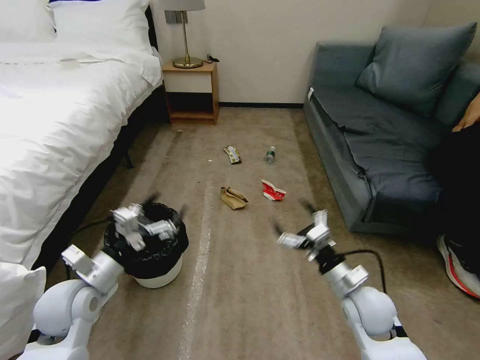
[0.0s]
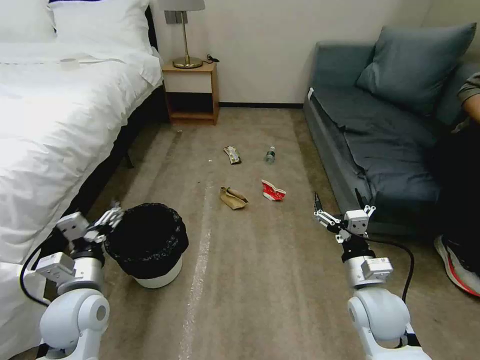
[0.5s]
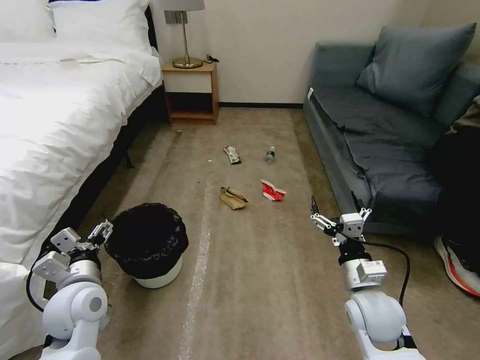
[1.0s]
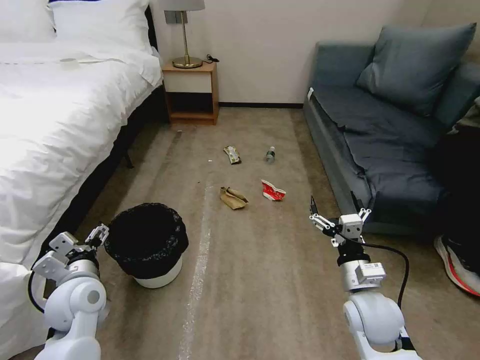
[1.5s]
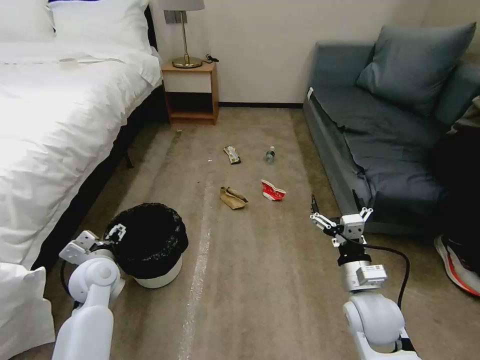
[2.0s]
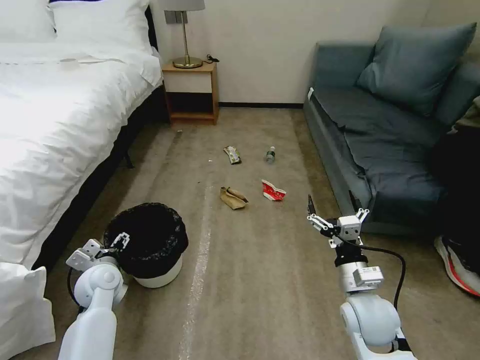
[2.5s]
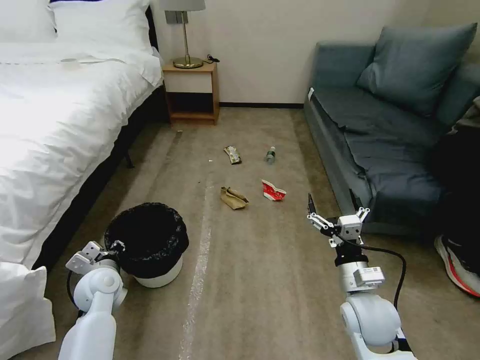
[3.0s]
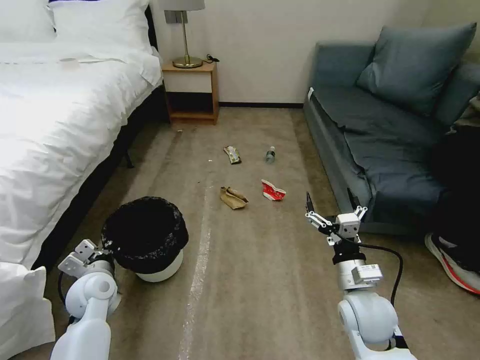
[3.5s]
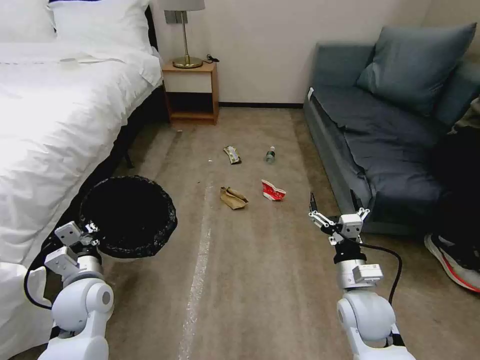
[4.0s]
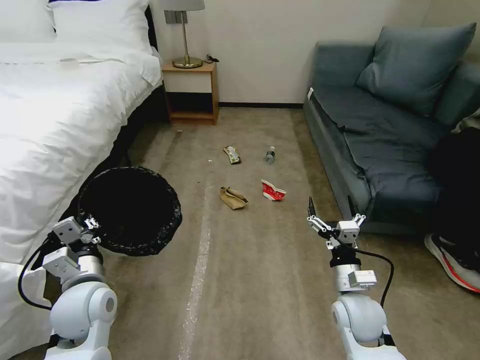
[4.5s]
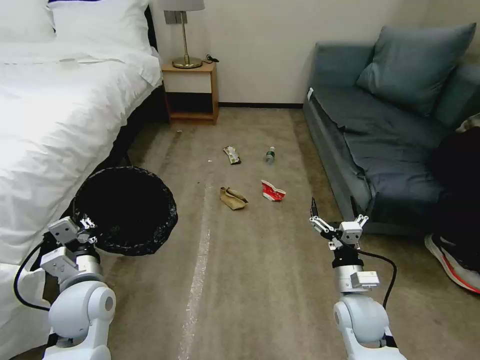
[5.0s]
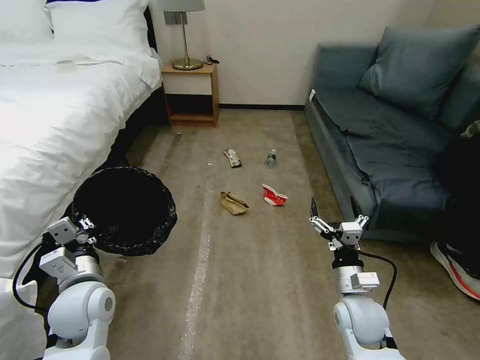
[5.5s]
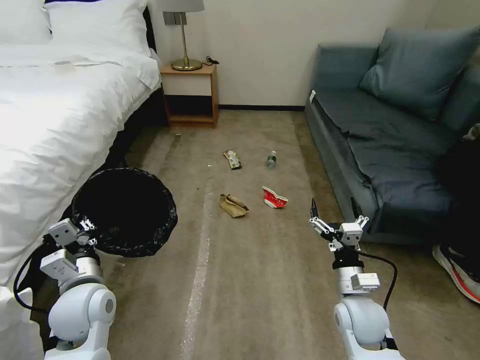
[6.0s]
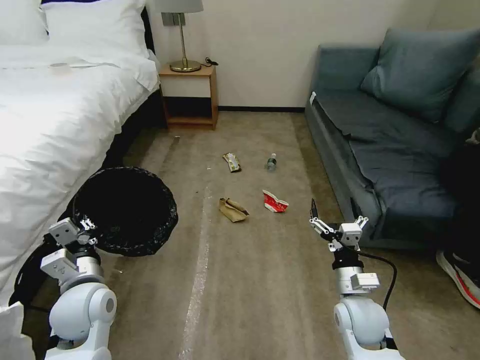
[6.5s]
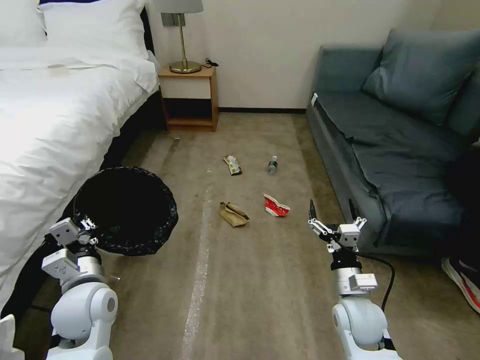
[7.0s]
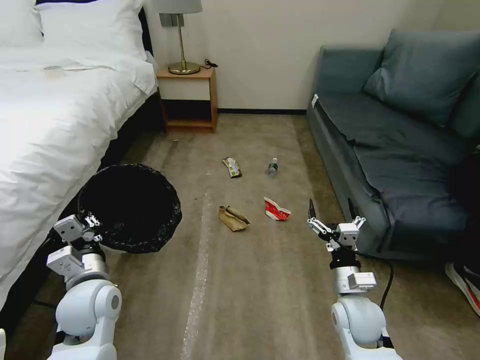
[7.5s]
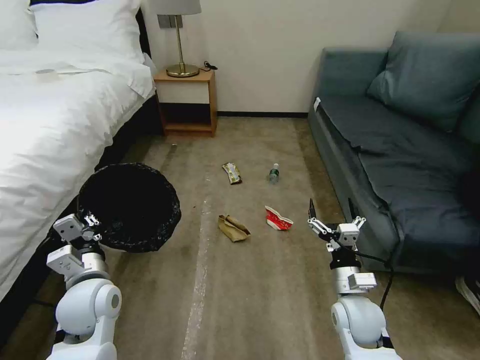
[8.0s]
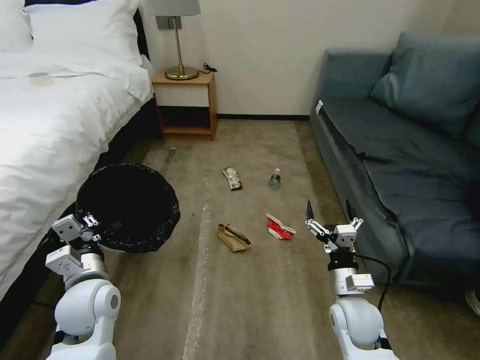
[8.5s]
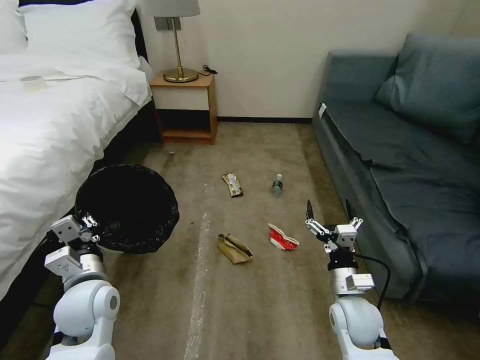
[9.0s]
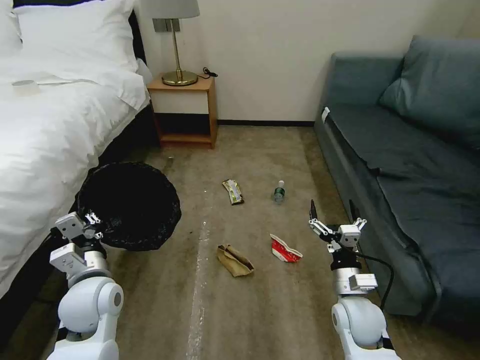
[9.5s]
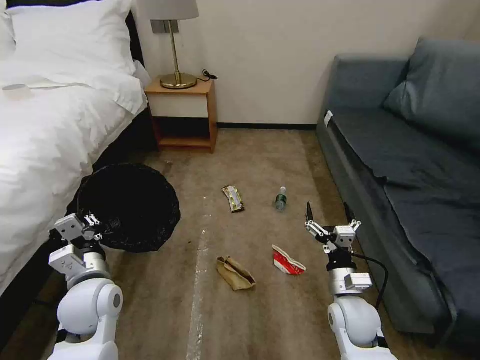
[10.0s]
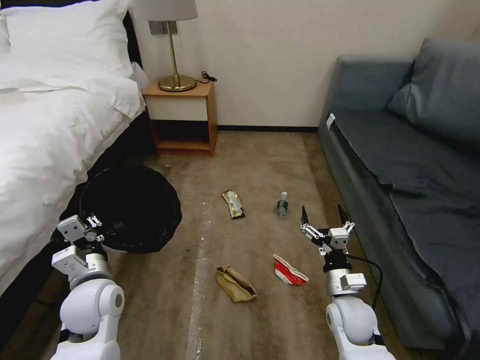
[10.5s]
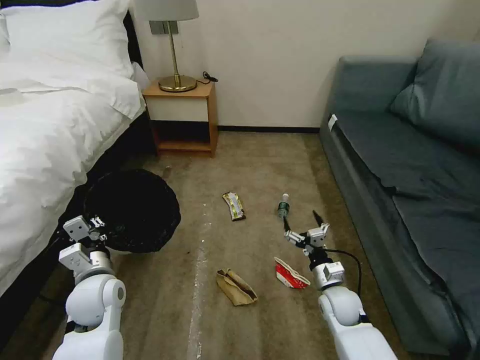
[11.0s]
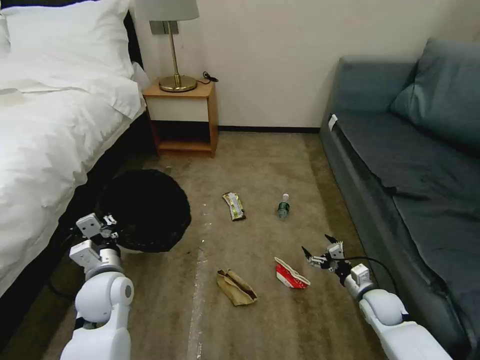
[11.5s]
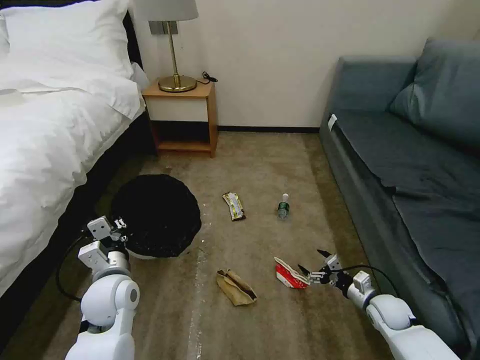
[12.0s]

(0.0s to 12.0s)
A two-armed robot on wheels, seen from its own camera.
Task of the whole recording: Pick up the trash bin, then pick up the garbage on the floor and place it into the trash bin.
2.0s - 4.0s: The left gripper goes about 5 cm backward, and closes.
4.0s - 6.0s: The grippers make only small movements.
10.0s - 12.0s: The right gripper goes some 20 cm to the right and downward.

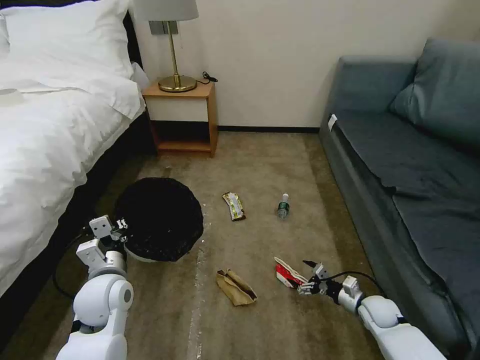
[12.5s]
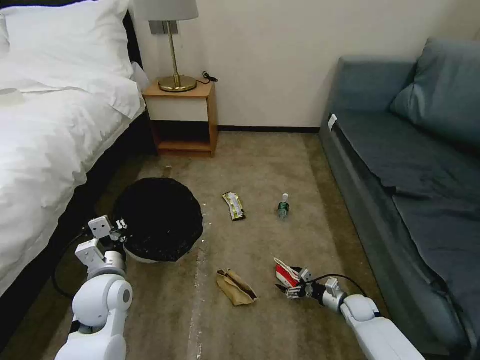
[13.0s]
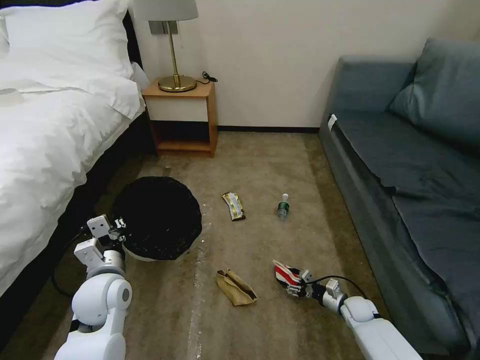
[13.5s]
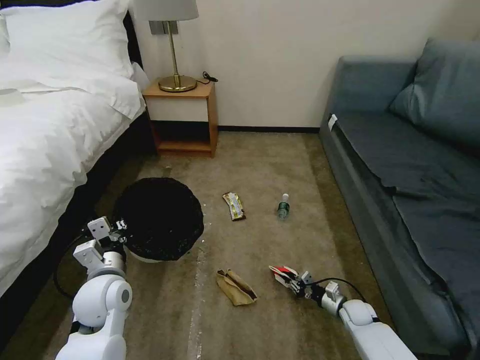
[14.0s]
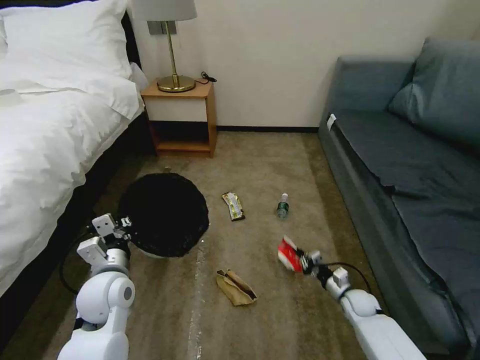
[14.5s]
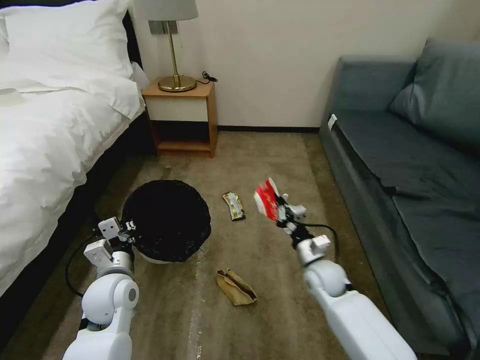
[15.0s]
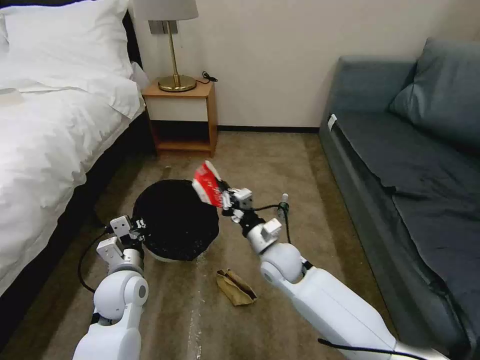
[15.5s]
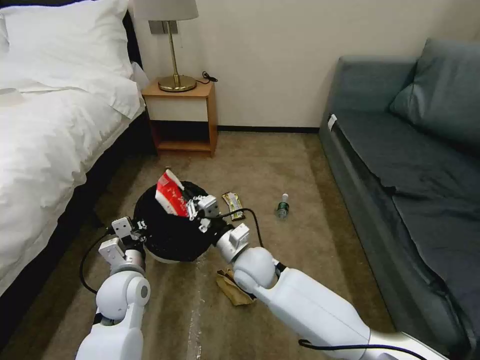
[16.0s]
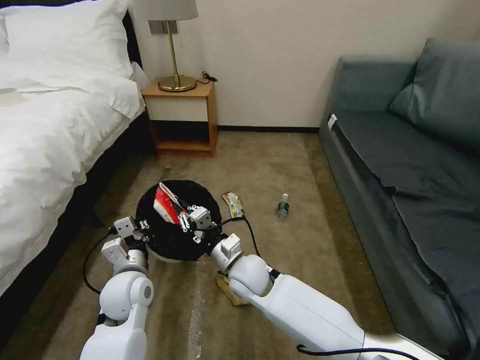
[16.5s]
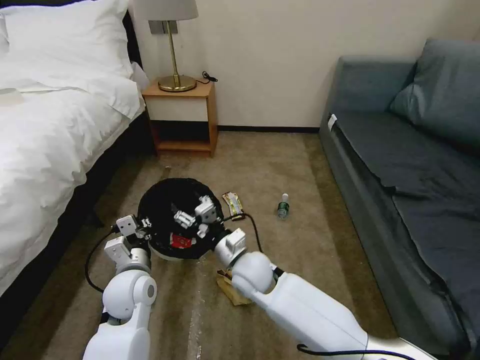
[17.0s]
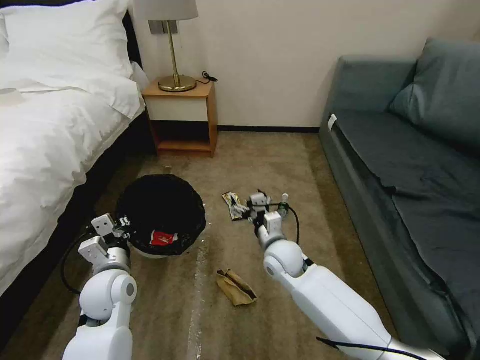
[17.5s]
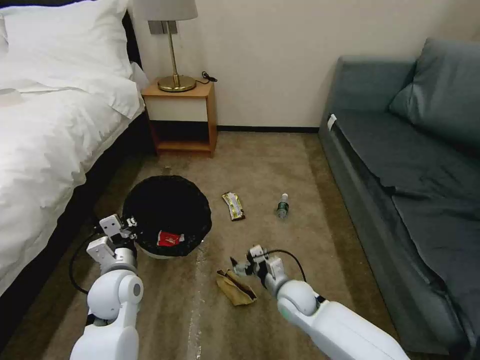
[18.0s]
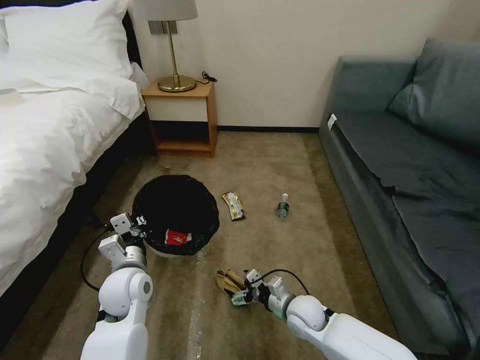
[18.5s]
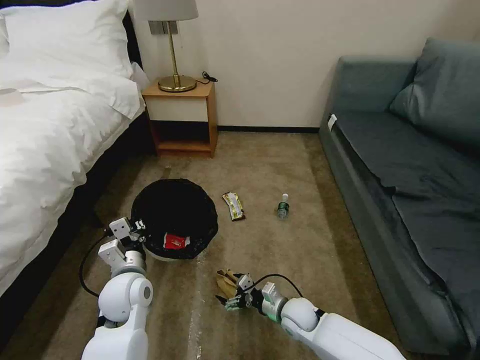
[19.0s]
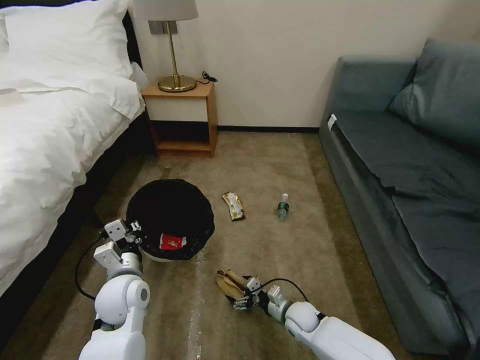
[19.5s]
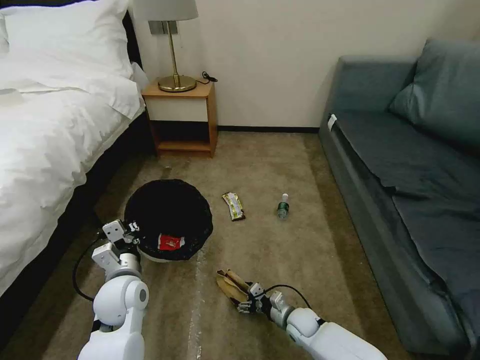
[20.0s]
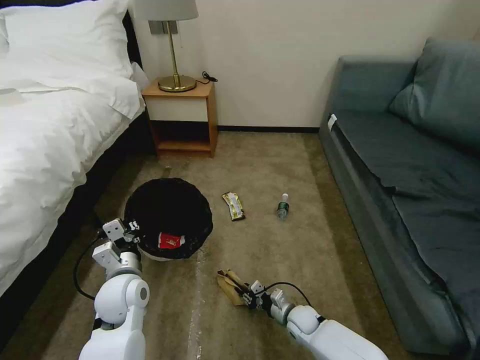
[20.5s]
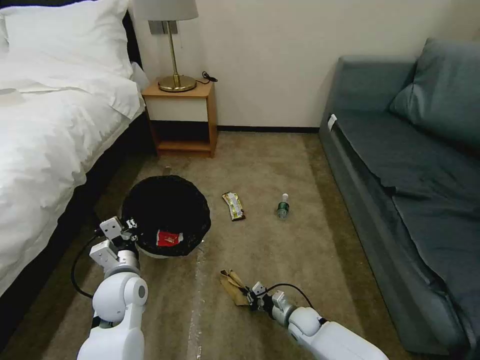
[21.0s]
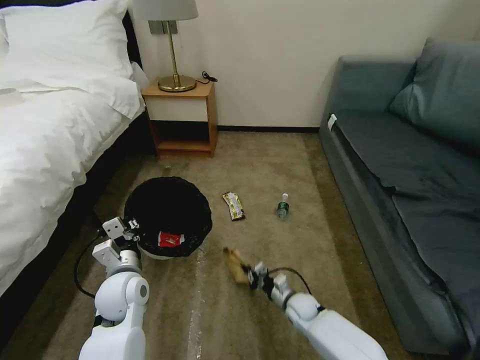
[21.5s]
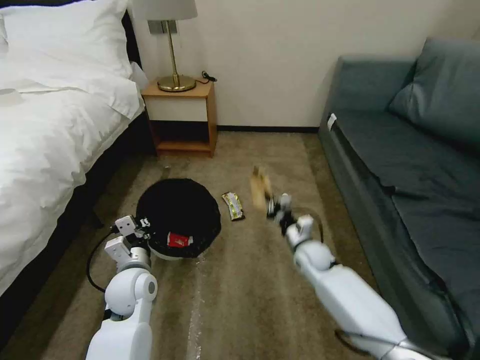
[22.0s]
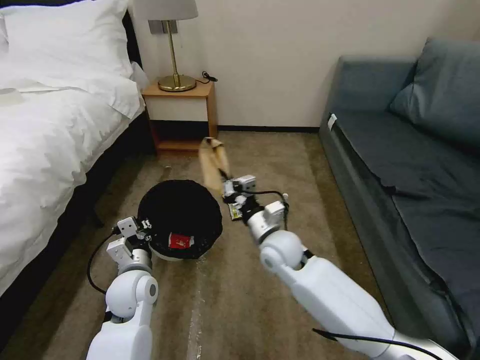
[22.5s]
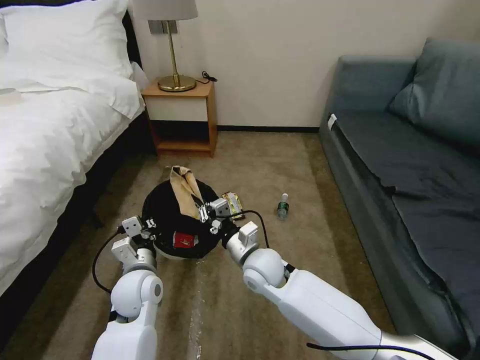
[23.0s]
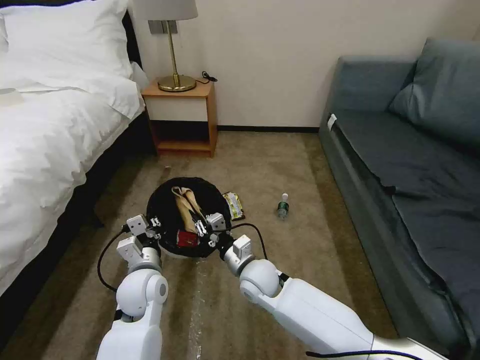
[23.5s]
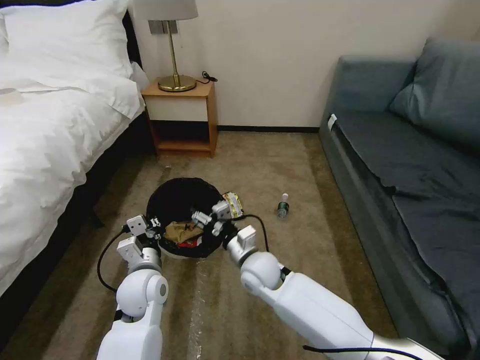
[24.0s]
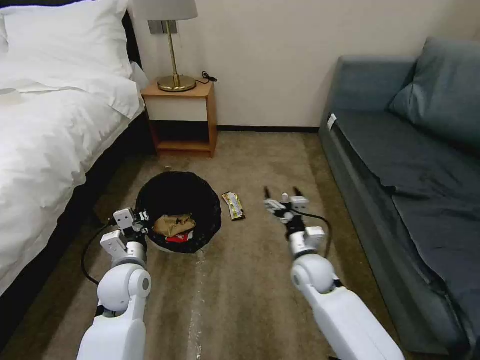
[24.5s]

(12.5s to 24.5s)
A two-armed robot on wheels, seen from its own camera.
Task of the whole recording: Pick up the trash bin, then pick up the garbage on the floor and place it into the trash bin.
12.5s - 14.5s: The right gripper changes place by roughly 5 cm, and closes up.
14.5s - 16.5s: The right gripper is displaced to the left and upward by roughly 40 cm.
16.5s - 18.5s: The right gripper goes roughly 20 cm to the right and downward, and opens.
18.5s - 20.5s: The right gripper is displaced downward by some 10 cm, and closes.
20.5s - 22.5s: The right gripper travels upward by about 30 cm.
22.5s - 24.5s: The right gripper moves to the right and downward, roughly 10 cm, and opens up.

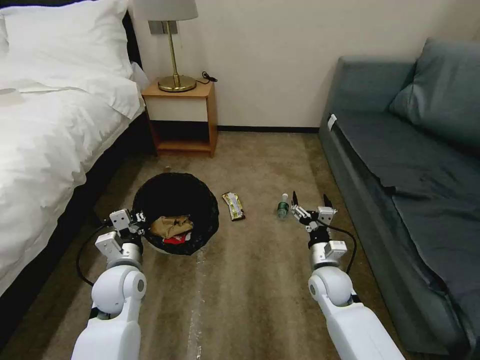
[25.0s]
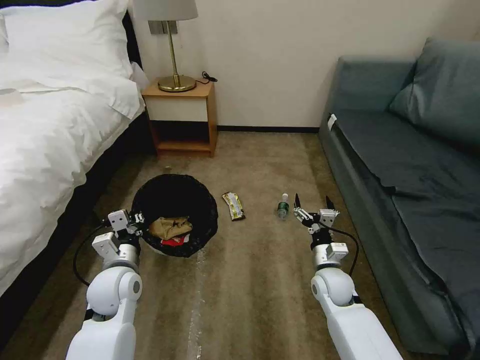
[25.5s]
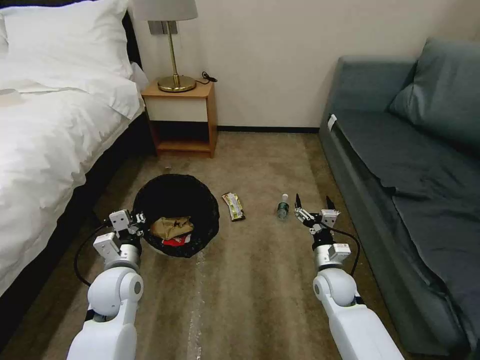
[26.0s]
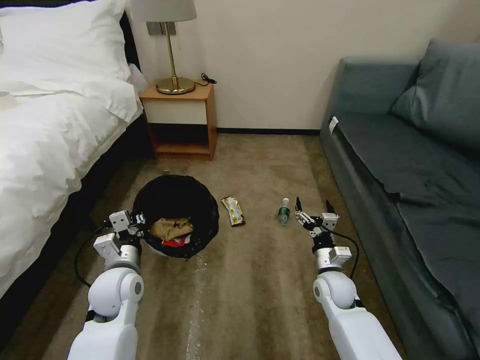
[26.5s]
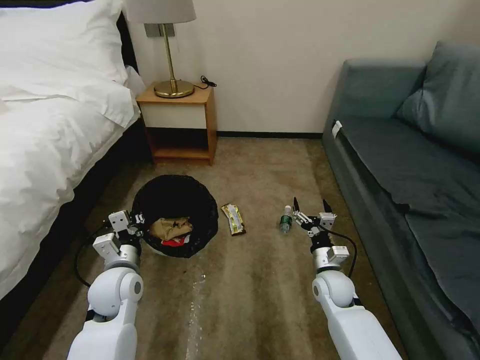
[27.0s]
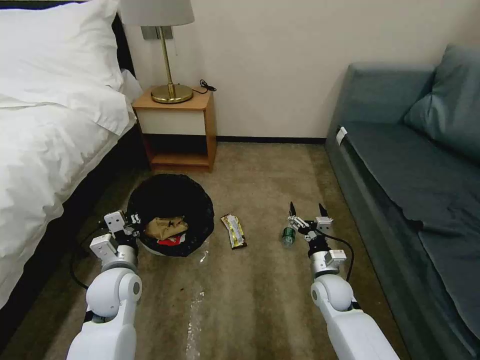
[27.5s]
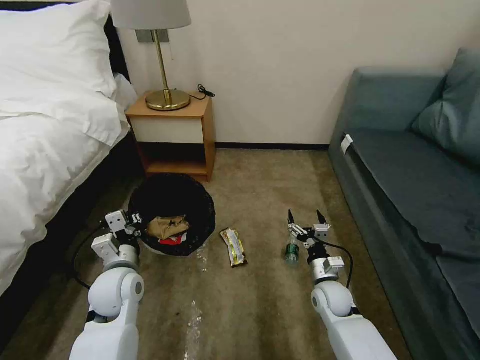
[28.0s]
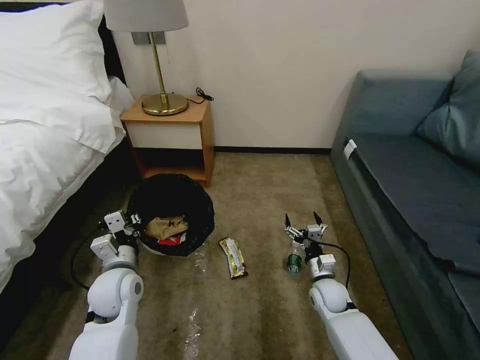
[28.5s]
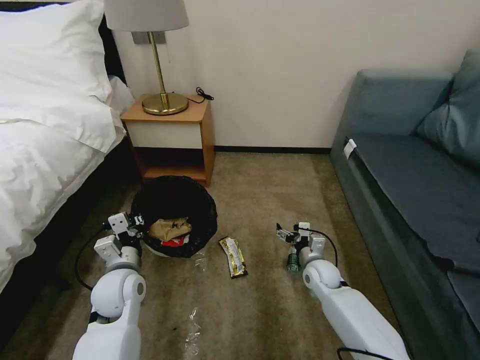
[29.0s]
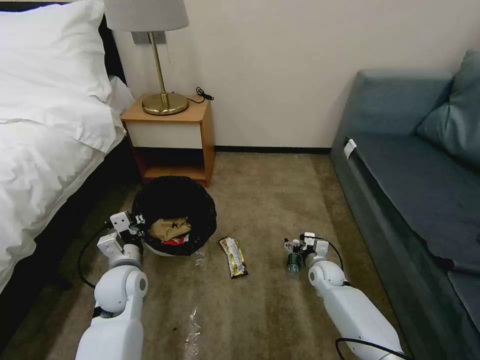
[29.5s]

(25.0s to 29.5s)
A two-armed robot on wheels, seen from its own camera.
Task of the whole recording: Pick up the trash bin, then pick up the garbage on the floor and place it into the trash bin.
25.0s - 27.0s: There are only small adjustments of the grippers.
27.0s - 29.5s: The right gripper goes about 10 cm downward and forward.
